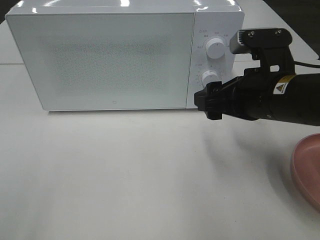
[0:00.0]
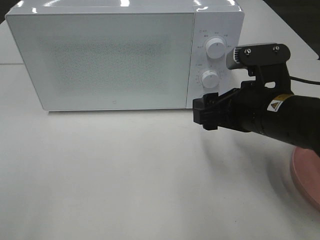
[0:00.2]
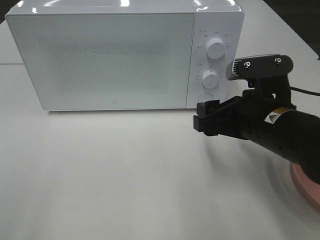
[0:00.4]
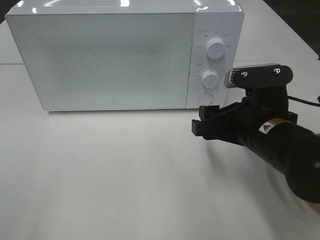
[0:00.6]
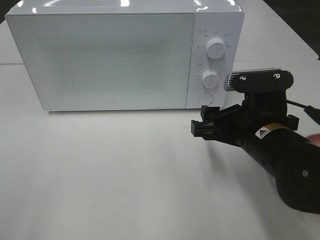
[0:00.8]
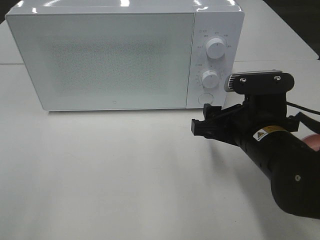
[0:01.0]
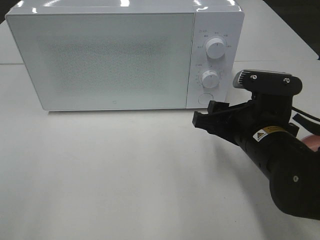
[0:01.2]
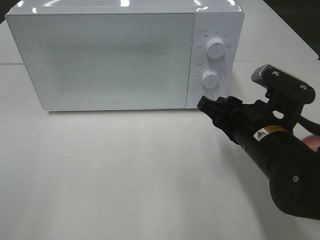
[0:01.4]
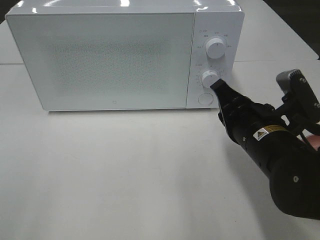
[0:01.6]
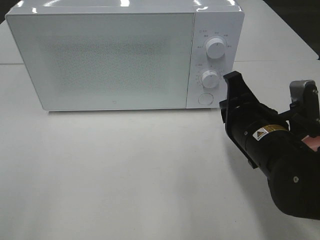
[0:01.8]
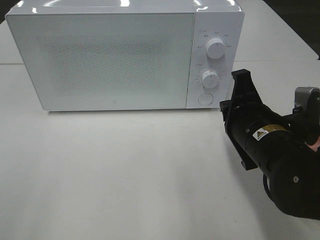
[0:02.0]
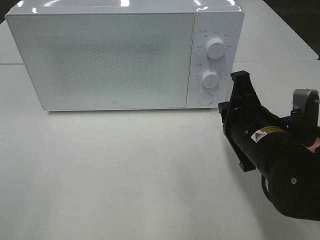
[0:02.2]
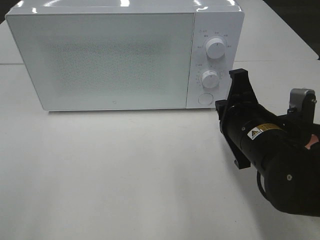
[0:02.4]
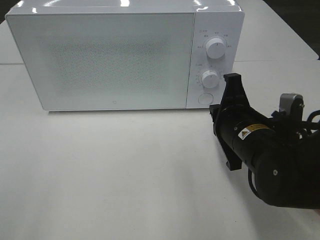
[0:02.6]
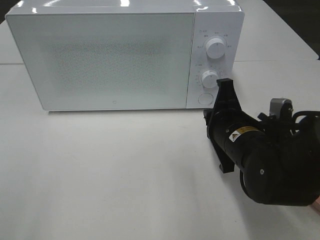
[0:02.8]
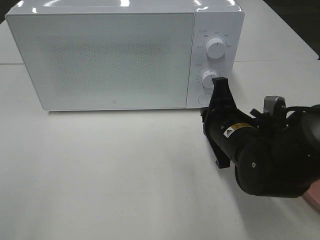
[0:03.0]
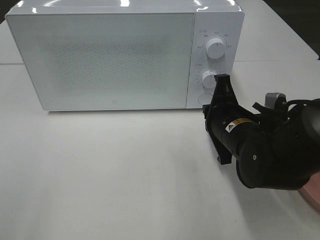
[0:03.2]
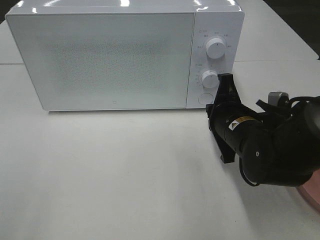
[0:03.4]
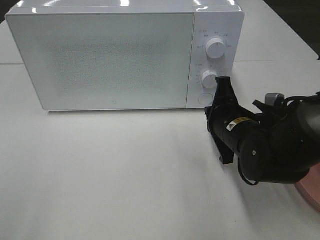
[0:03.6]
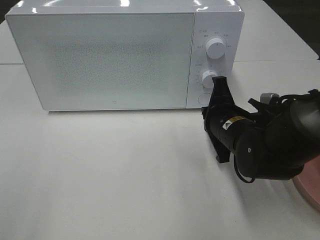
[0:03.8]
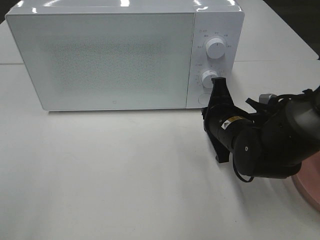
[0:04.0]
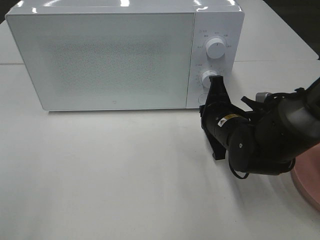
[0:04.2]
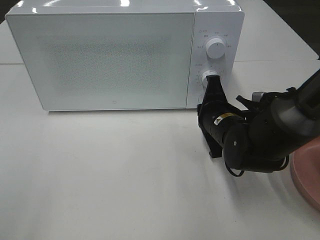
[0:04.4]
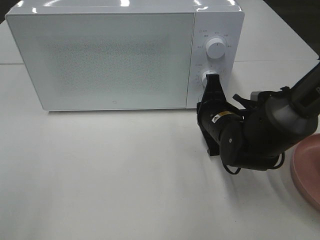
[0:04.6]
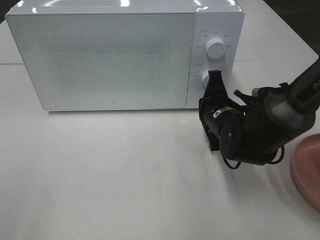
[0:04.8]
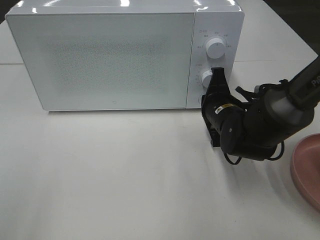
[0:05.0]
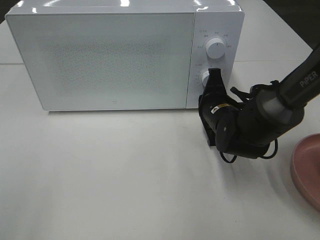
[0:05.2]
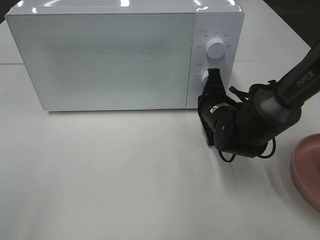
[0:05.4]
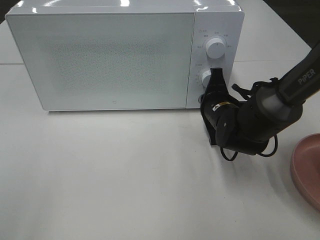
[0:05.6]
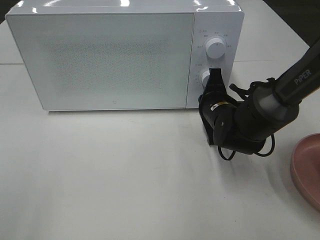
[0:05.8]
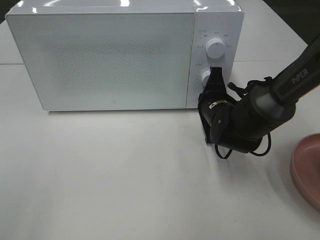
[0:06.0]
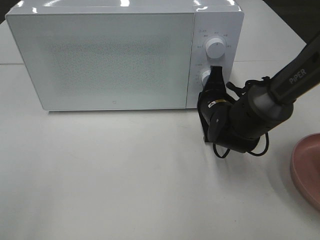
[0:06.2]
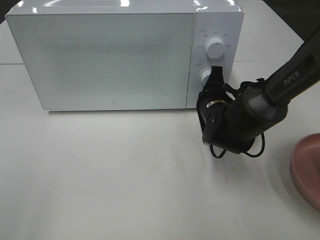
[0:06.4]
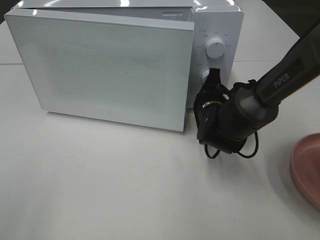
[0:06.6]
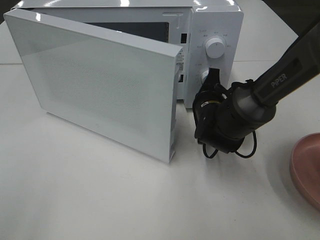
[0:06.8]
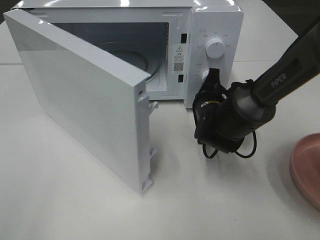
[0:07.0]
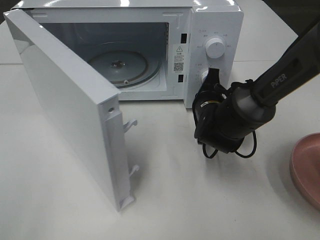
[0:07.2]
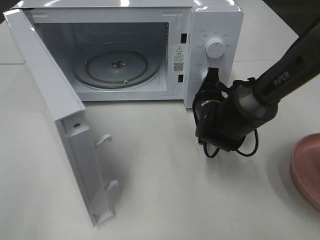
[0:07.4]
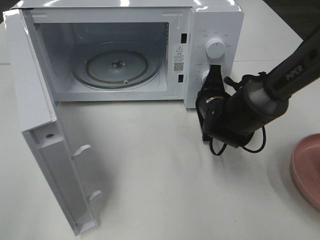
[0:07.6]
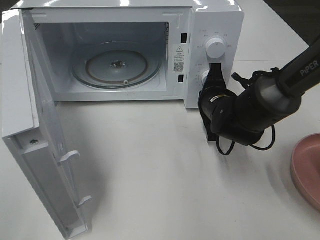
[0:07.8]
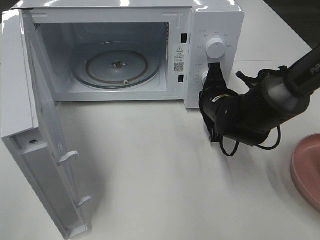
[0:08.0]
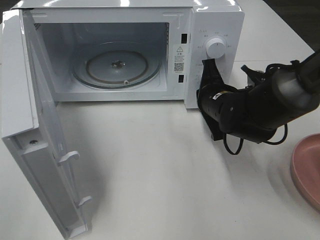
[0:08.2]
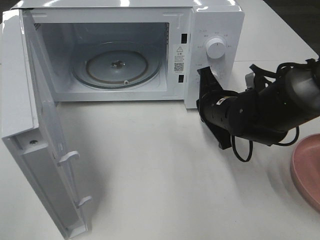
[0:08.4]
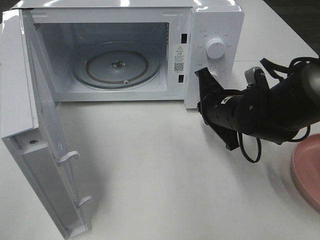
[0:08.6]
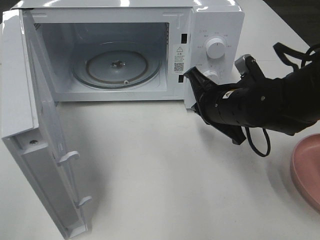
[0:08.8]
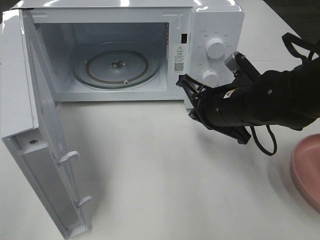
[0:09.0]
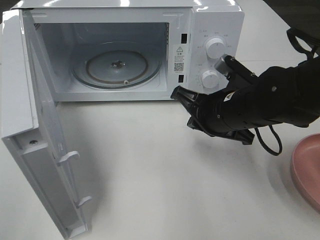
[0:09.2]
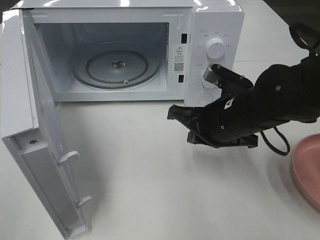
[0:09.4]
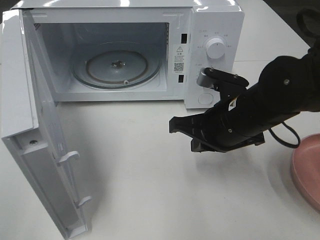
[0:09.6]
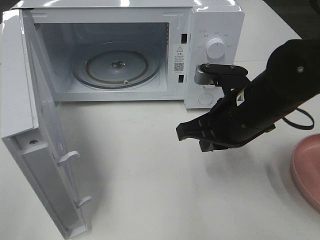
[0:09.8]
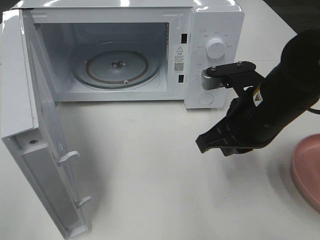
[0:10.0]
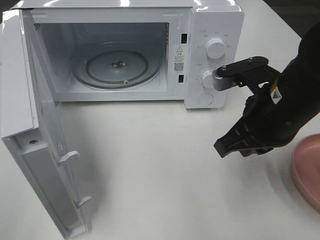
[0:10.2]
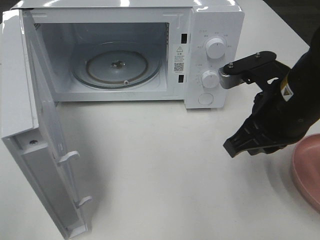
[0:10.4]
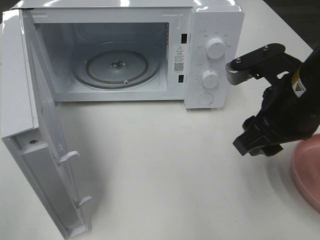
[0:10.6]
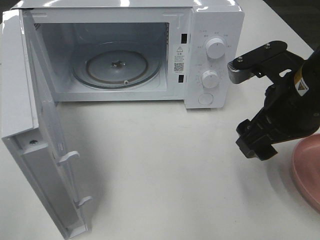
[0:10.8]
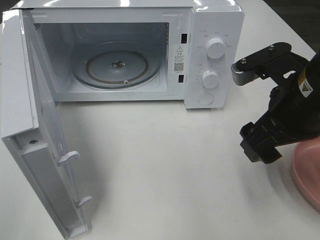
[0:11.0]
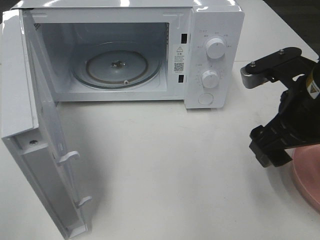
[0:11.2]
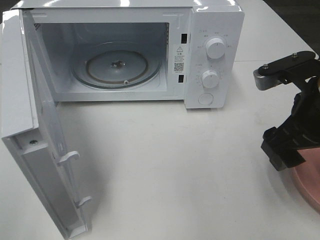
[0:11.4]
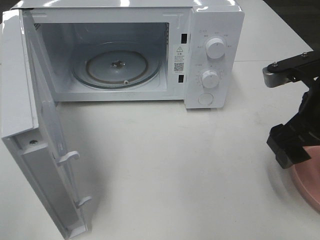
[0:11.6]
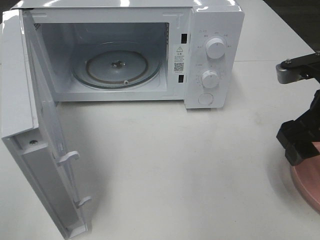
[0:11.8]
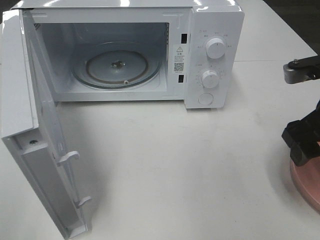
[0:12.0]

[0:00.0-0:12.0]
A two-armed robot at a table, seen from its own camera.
Task of the whole recording: Heat the burger.
Step, 0:00.0 to 0:08.0: Right hand: press the switch.
0:00.0 to 0:01.6: The right gripper travels downward by some 5 cm, and closes up.
0:01.6 to 0:03.0: The right gripper ends up about 5 cm from where it was.
0:03.0 to 0:04.4: The right gripper moves some 5 cm.
0:04.4 to 0:06.0: The right gripper travels forward by about 5 cm.
0:07.6 to 0:09.0: The right gripper shifts some 10 cm backward and upward.
0:09.0 to 0:10.4: The right gripper travels upward and backward by approximately 10 cm.
0:10.4 to 0:12.0: The right gripper travels to the right by roughly 10 cm, and opens its fingers.

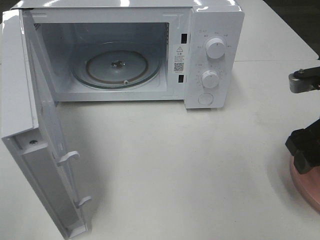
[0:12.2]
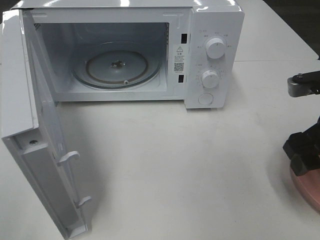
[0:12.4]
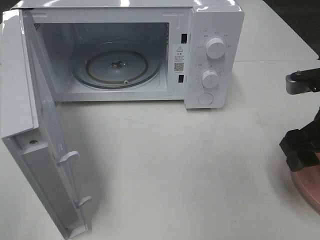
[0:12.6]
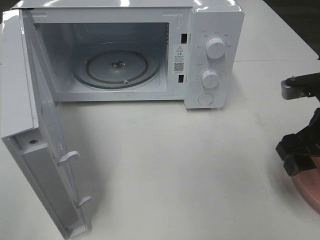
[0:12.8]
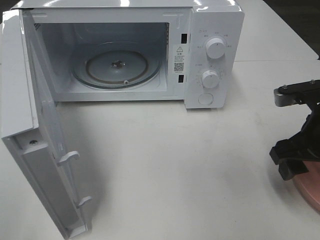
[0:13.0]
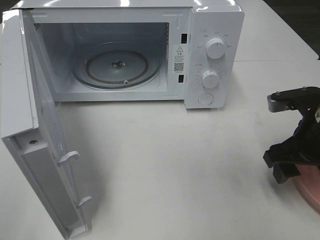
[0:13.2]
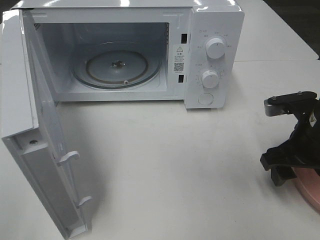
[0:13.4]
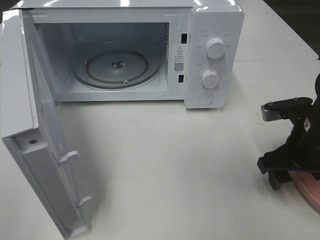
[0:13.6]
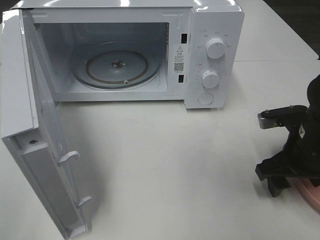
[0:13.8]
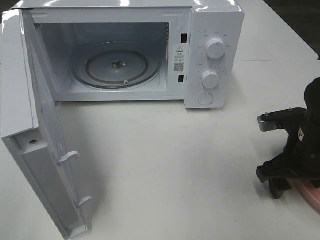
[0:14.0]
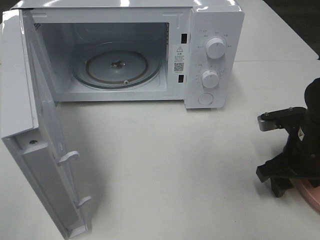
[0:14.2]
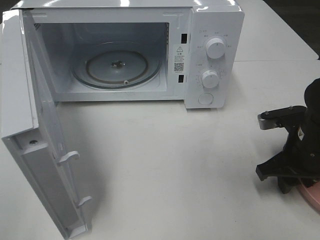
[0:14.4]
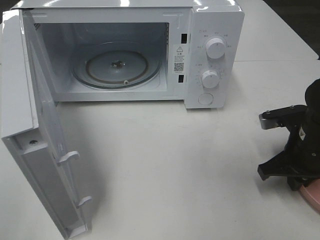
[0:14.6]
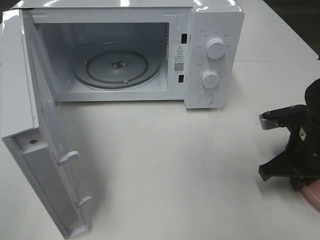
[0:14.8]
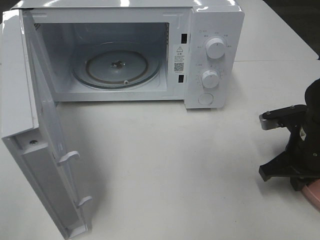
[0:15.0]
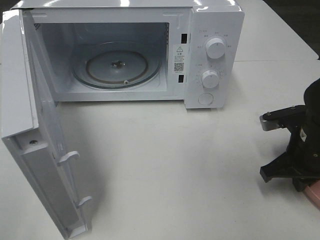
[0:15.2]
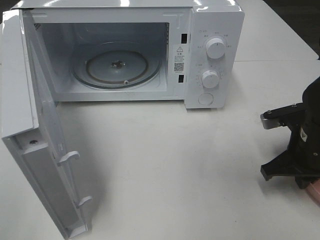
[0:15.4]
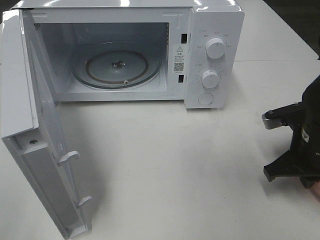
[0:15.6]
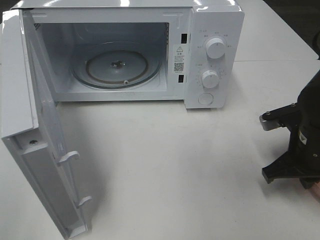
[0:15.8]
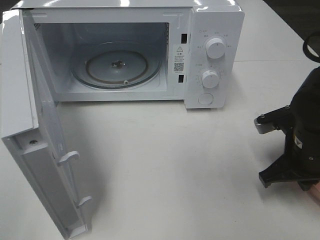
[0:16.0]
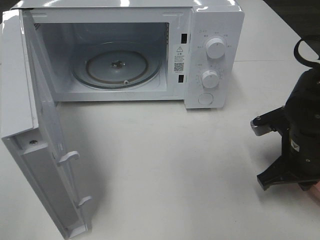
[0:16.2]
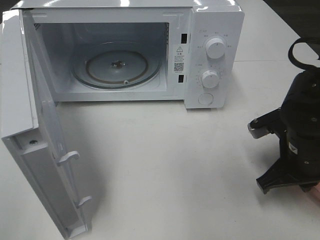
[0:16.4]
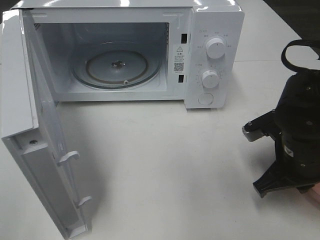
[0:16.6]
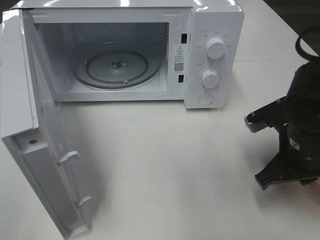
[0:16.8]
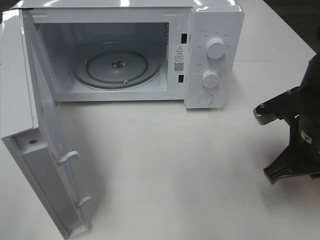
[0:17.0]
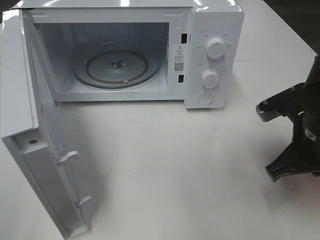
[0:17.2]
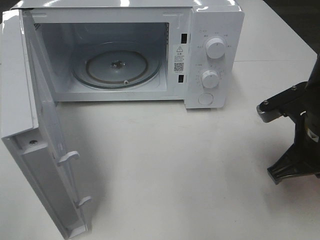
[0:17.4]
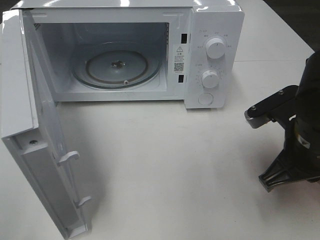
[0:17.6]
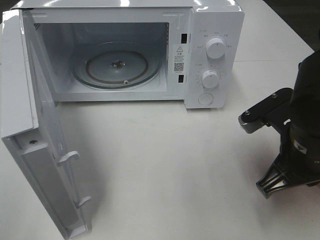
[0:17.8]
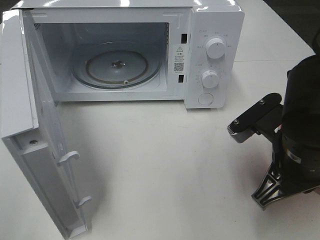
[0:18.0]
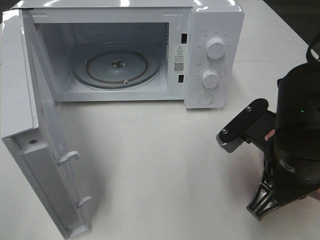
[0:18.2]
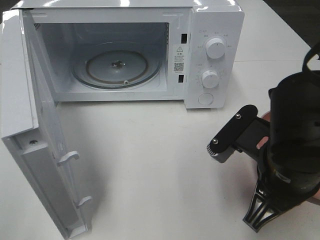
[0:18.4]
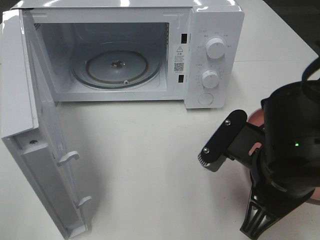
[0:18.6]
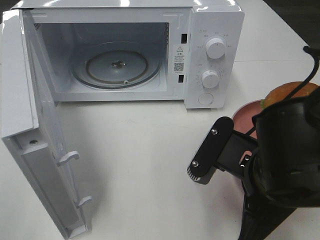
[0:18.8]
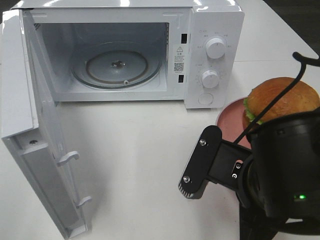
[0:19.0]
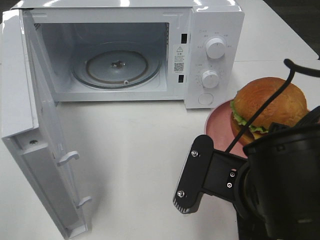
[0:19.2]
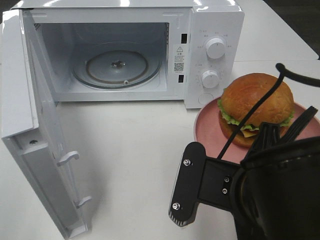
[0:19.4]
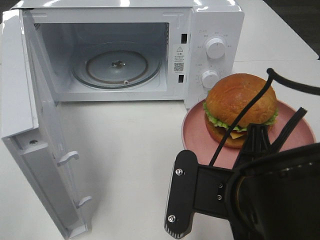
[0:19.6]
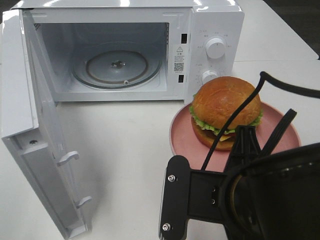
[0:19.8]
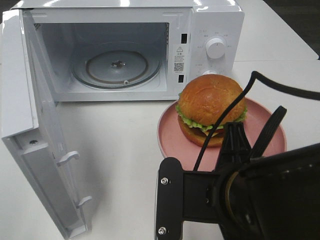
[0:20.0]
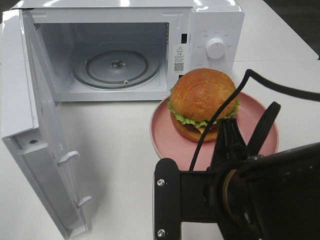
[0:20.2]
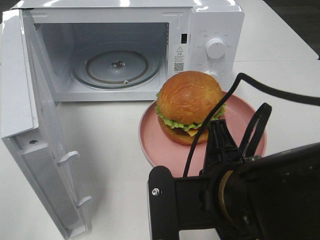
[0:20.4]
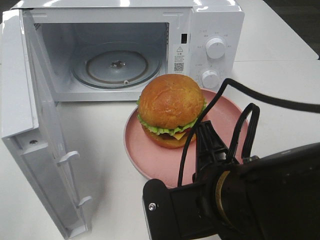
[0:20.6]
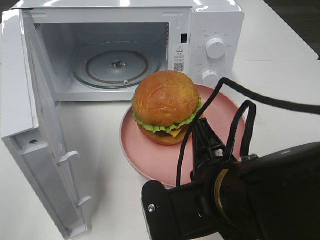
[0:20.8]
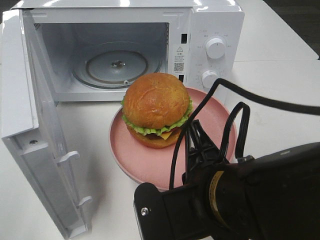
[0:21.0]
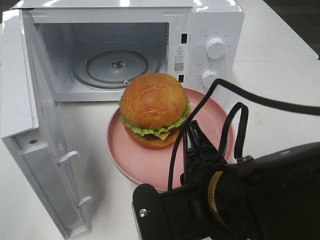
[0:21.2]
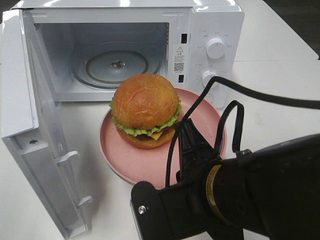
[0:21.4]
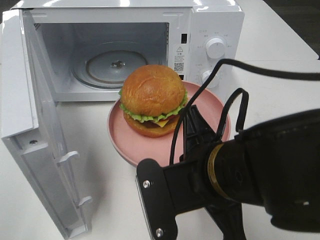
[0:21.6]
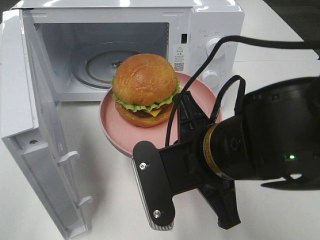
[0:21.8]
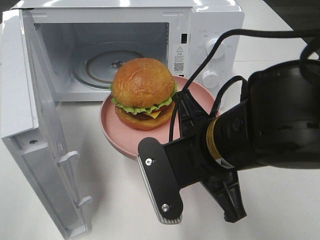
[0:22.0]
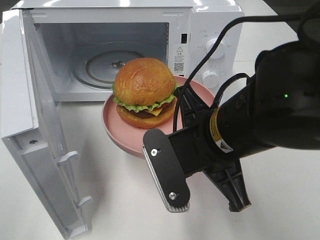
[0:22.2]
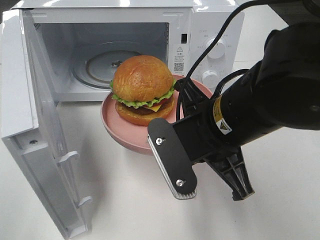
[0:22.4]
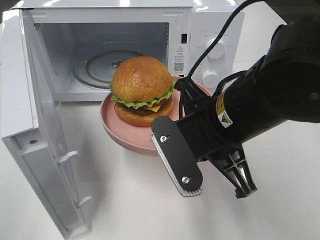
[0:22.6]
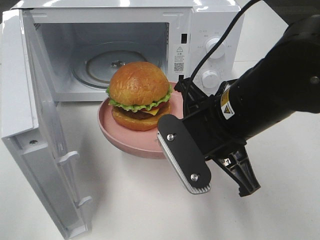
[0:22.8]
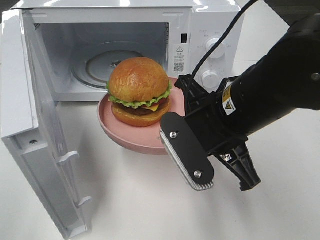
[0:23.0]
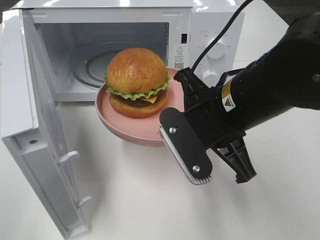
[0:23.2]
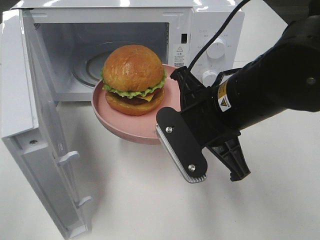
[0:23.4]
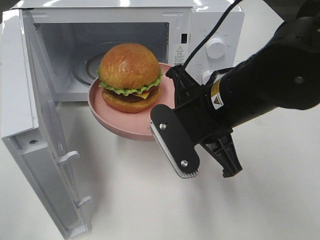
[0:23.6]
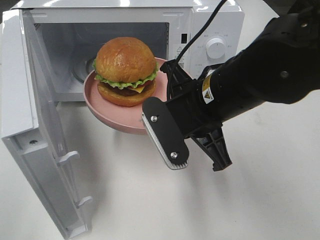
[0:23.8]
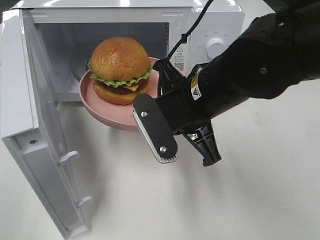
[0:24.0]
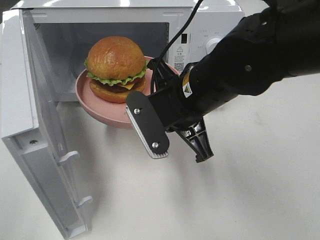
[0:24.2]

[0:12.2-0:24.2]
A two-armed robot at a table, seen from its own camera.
Task of the whole recording: Heat the burger.
Step, 0:12.2 to 0:14.8: Right hand: grab the plate with the hamburger.
0:12.2 to 0:13.8: The right gripper heads downward, covering approximately 10 cm.
0:13.8 to 0:15.2: The right gripper closes.
0:15.2 to 0:16.6: The grippers stay close to where they were, moving slightly.
0:16.6 to 0:18.2: The right gripper travels backward, to the left and upward by some 10 cm.
0:18.2 to 0:19.8: The right gripper shifts roughly 10 cm to the left and backward.
0:21.2 to 0:22.6: The right gripper moves forward, some 10 cm.
0:22.6 to 0:24.2: The right gripper is displaced forward by about 5 cm.
